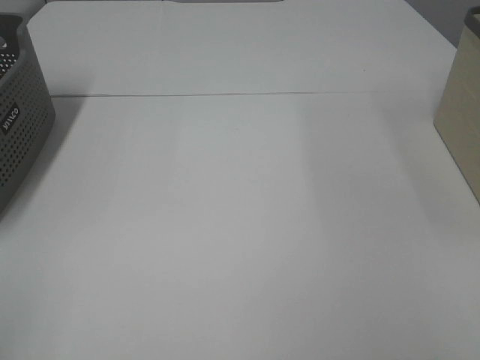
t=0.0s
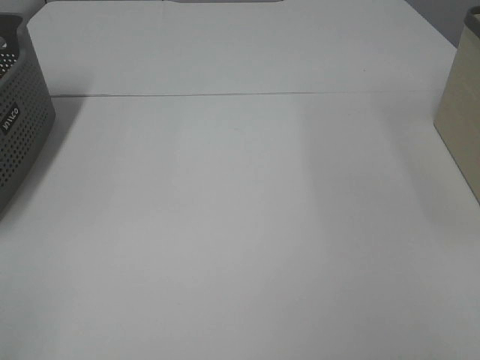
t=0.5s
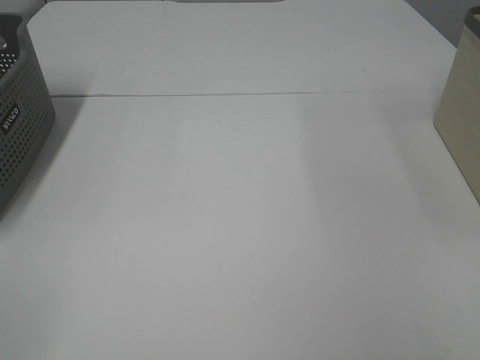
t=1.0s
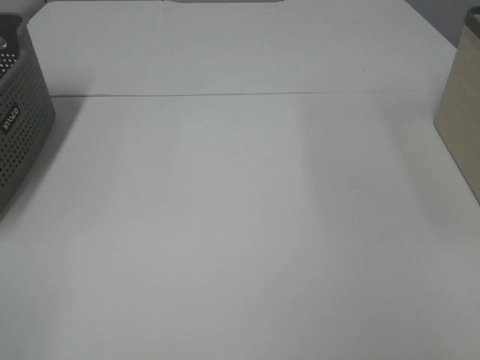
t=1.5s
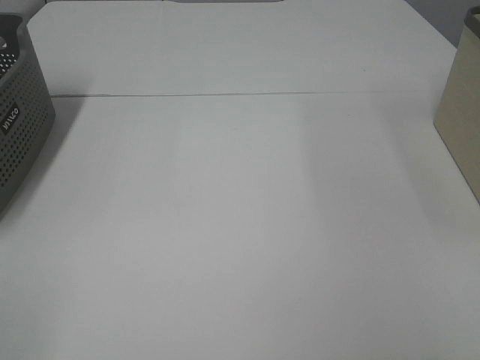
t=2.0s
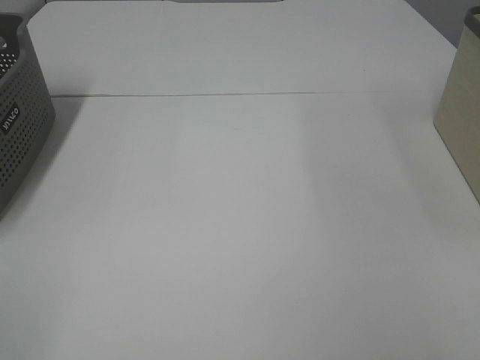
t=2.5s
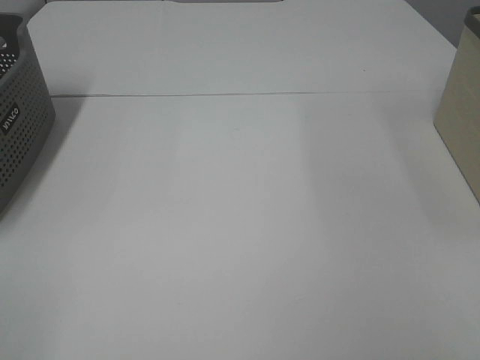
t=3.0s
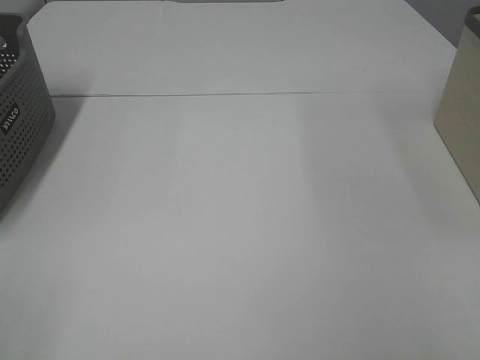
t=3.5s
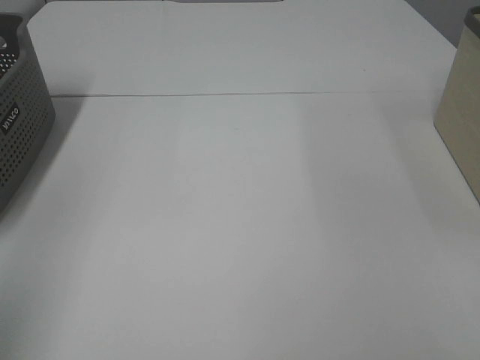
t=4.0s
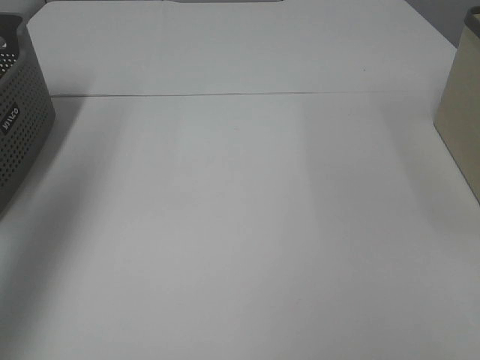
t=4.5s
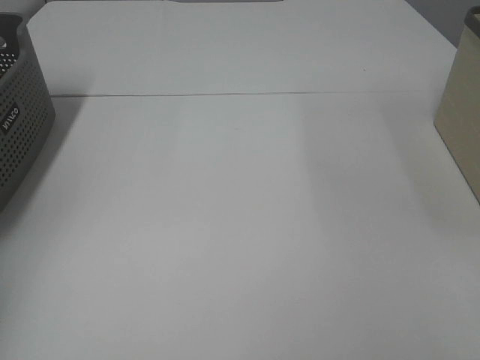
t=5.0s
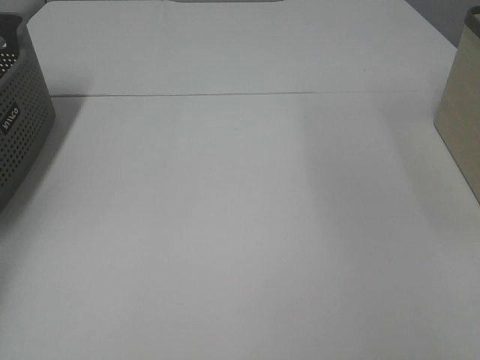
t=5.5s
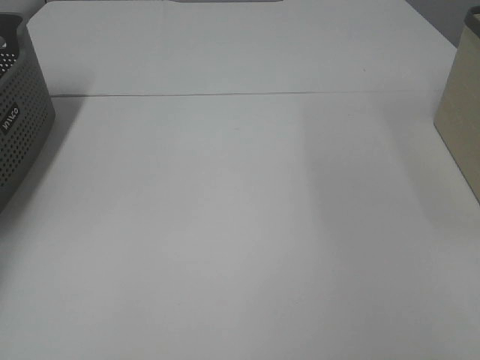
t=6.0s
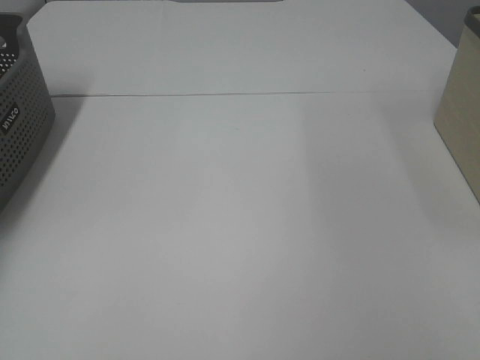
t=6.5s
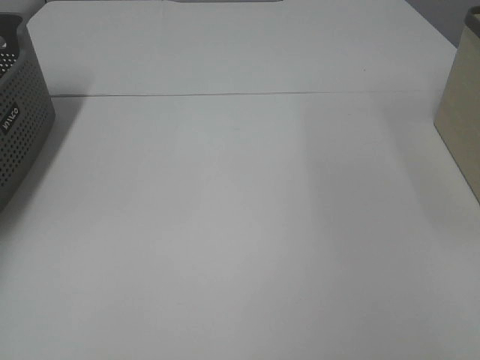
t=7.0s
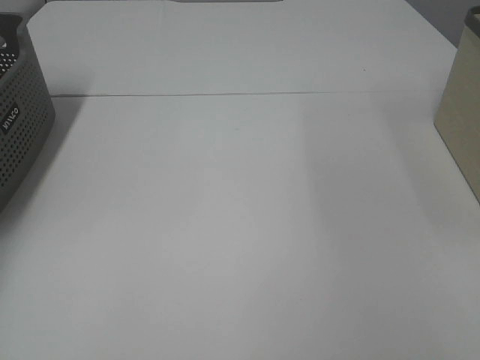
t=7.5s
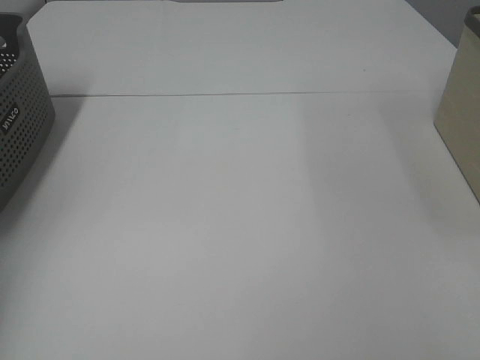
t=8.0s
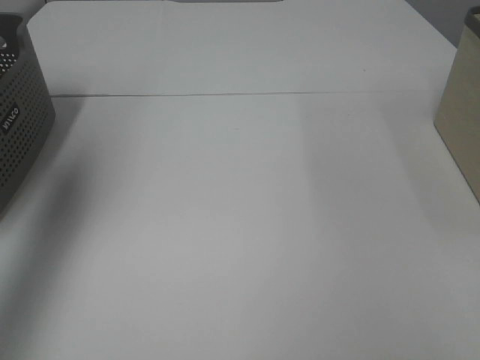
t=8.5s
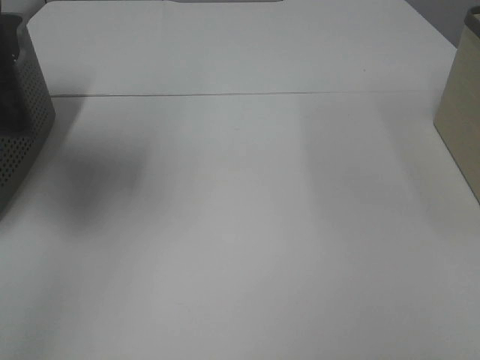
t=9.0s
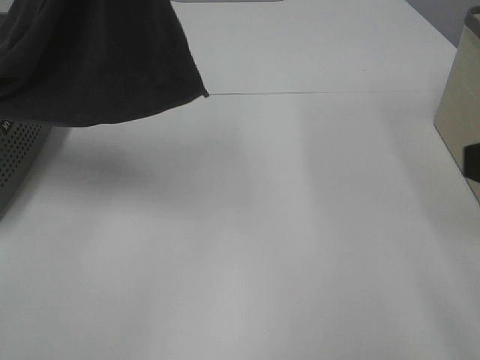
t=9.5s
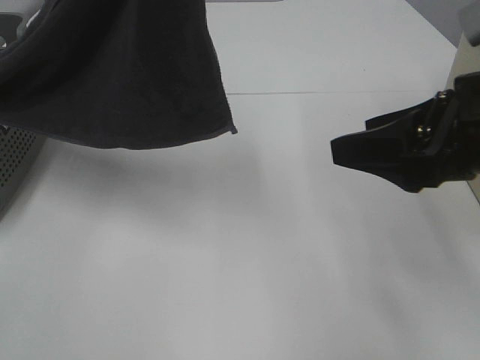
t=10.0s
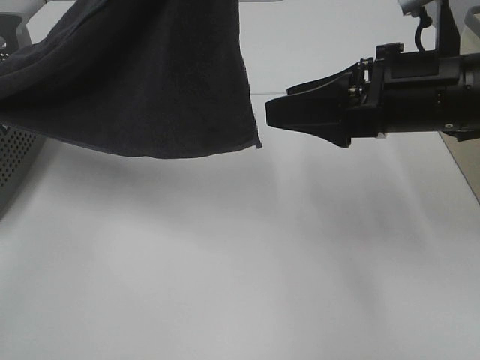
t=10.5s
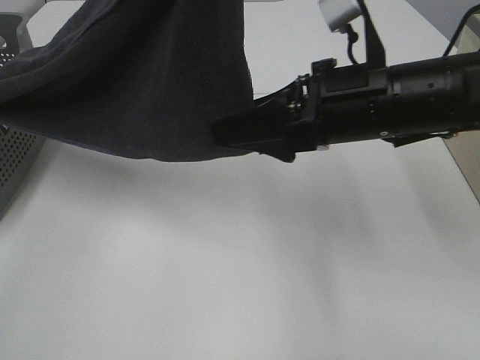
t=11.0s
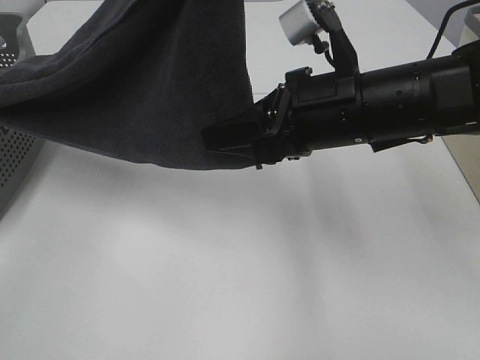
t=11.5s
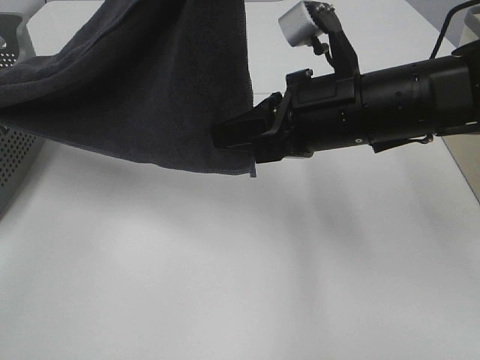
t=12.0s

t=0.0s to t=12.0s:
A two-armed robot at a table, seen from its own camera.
Task of the whole recording: Remove the towel and place it.
t=4.0s to t=6.0s: The left gripper travels forward, downward and to the left by about 40 cm.
t=8.0s to t=10.0s: The right gripper goes approximately 20 cm forward and to the left. Meanwhile the left gripper shifts approximately 35 cm to the right and upward.
t=10.0s to t=12.0s: The right gripper heads to the left and forward, covering approximately 10 cm, and closes.

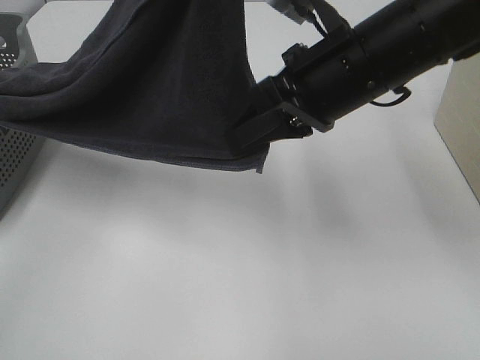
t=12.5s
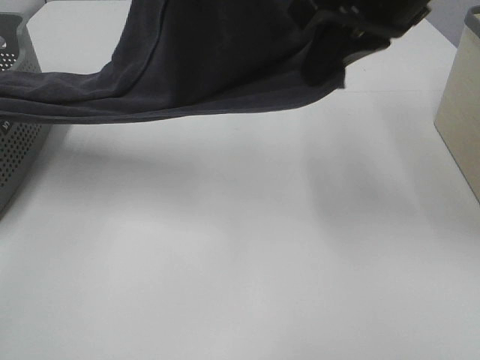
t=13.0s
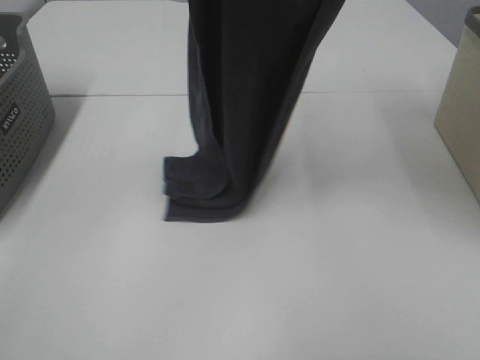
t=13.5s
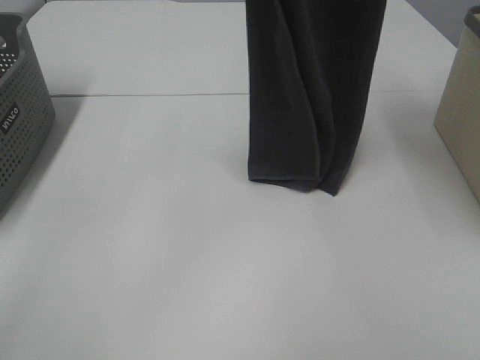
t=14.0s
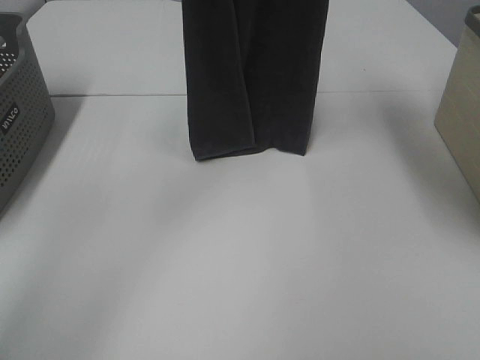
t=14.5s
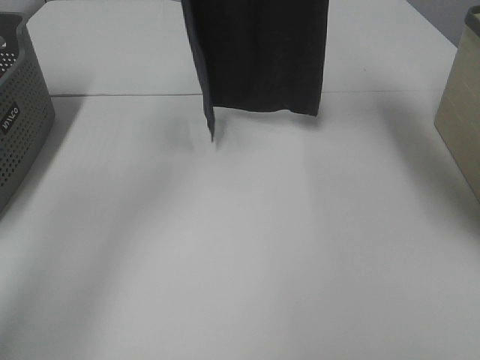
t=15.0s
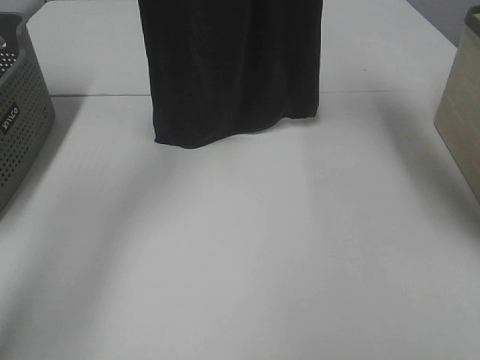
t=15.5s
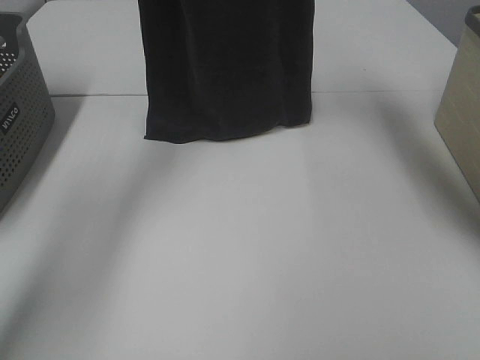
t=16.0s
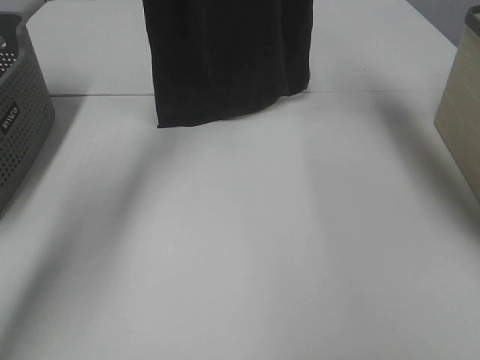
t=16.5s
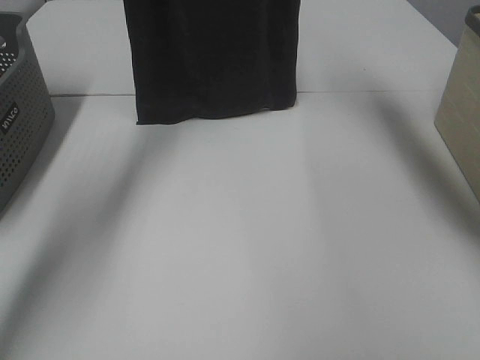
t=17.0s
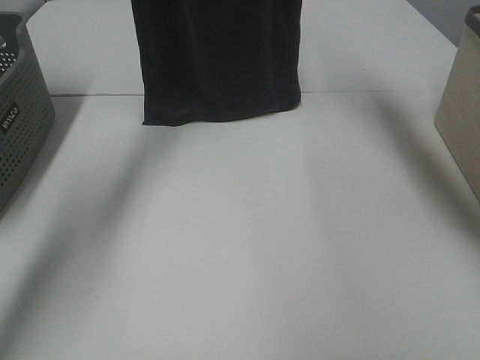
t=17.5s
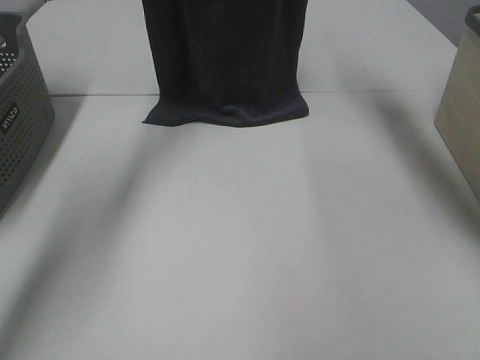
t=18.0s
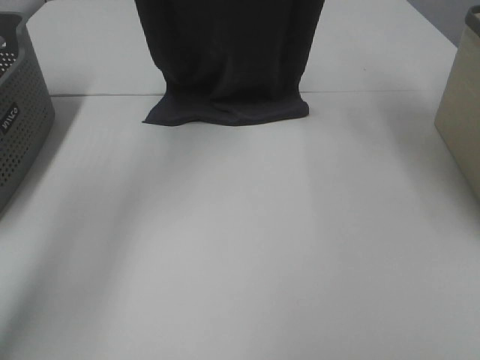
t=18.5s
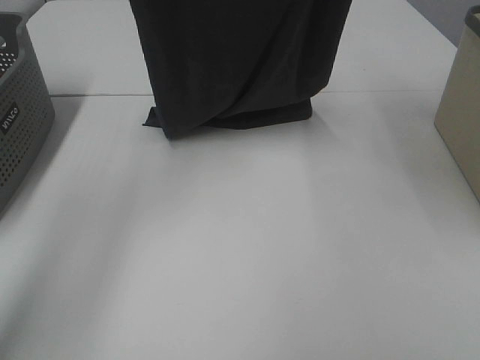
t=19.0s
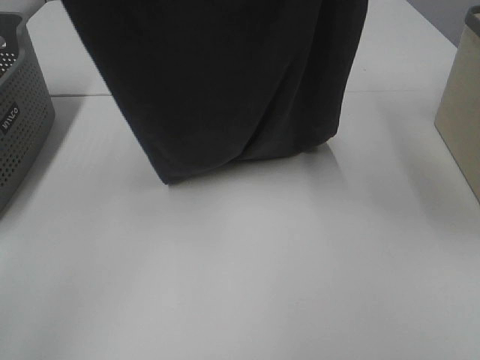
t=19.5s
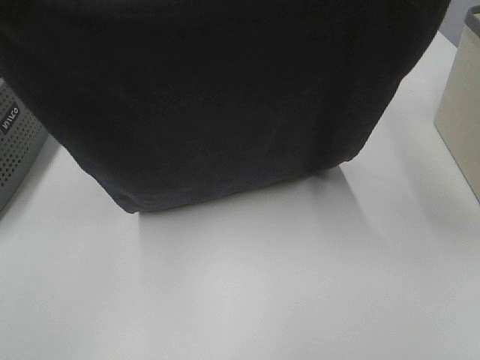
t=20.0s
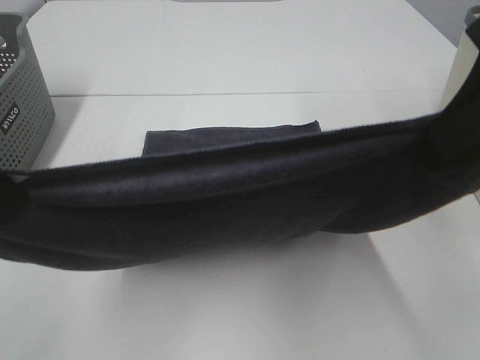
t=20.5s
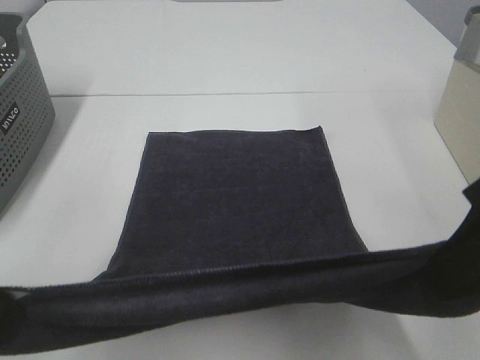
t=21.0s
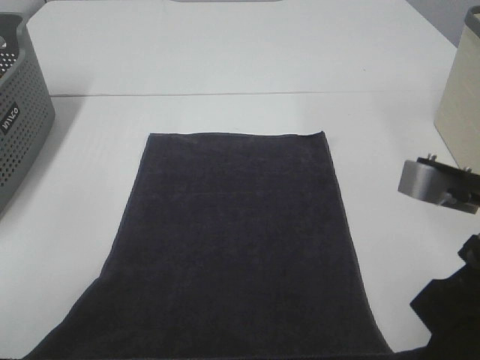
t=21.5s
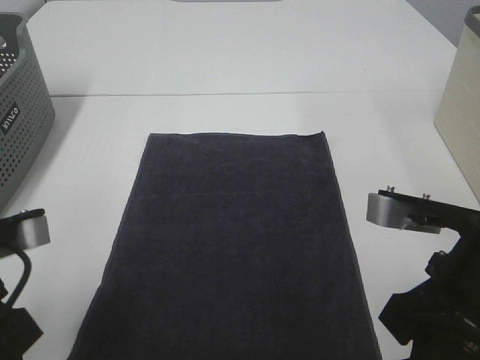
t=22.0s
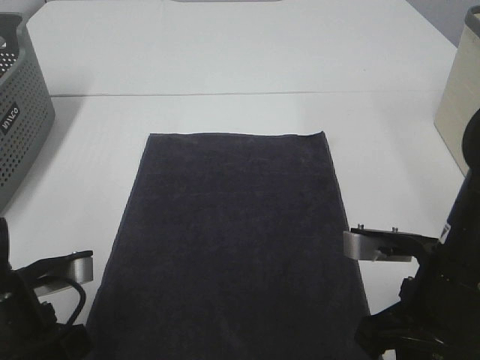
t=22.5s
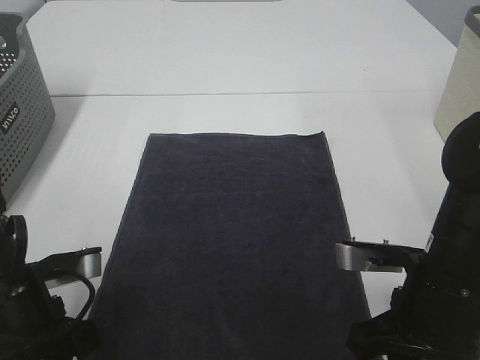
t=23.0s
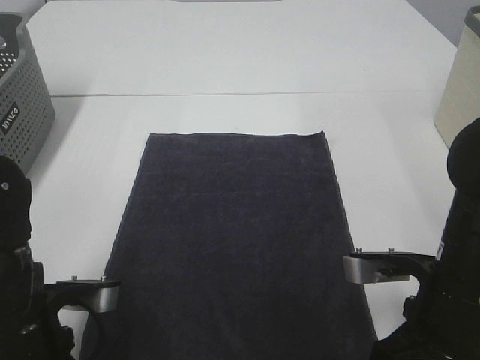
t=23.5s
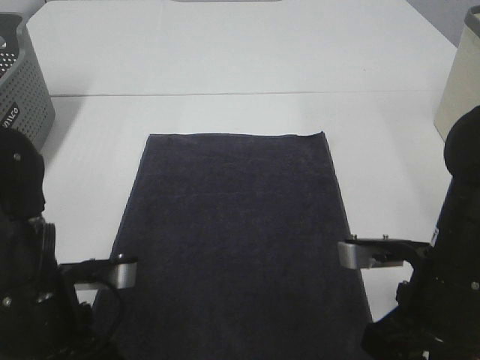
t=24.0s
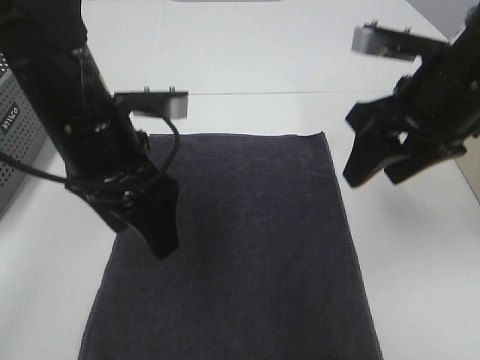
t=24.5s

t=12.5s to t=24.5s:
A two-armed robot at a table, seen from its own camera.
Task of the whole recording: Remove the towel and place it.
Step, t=13.0s to t=19.0s: Left hand: spread the grey towel flat on the table.
Step, t=13.0s to t=19.0s: Right hand: spread the grey towel flat on the table.
t=12.5s to t=14.5s: The left gripper moves forward, about 15 cm. Meanwhile the right gripper moves upward and forward, approximately 25 cm.
t=14.5s to t=16.5s: The grippers both shift forward by about 10 cm.
t=16.5s to t=18.5s: The grippers both shift backward by about 5 cm.
t=18.5s to t=20.5s: The left gripper travels backward and downward by approximately 30 cm. The right gripper travels backward by approximately 25 cm.
t=20.5s to t=22.5s: The grippers both shift downward by roughly 20 cm.
t=22.5s to t=24.5s: The right gripper goes about 15 cm upward and forward, and opens up, while the left gripper is displaced forward, upward and to the right by some 15 cm, and opens.

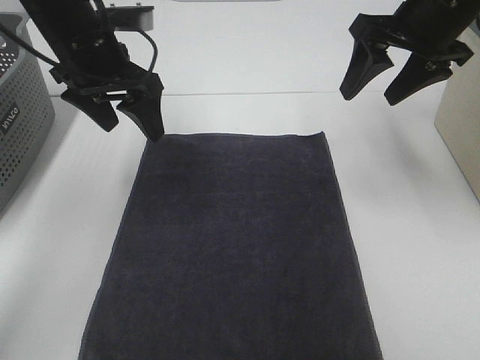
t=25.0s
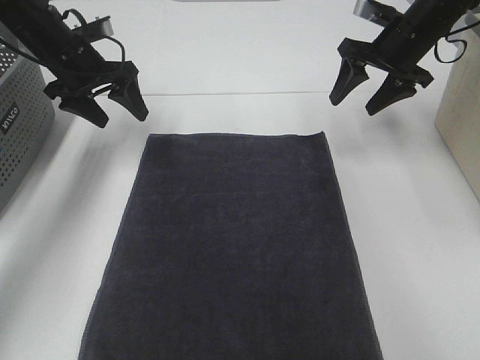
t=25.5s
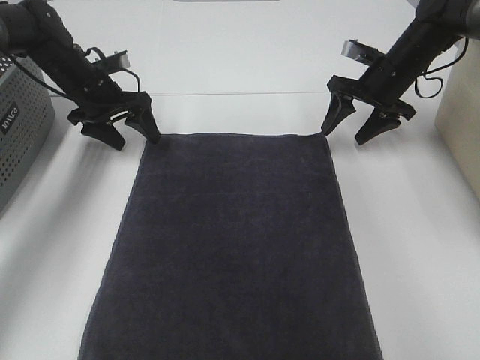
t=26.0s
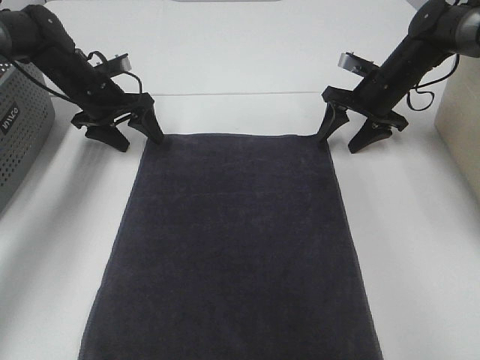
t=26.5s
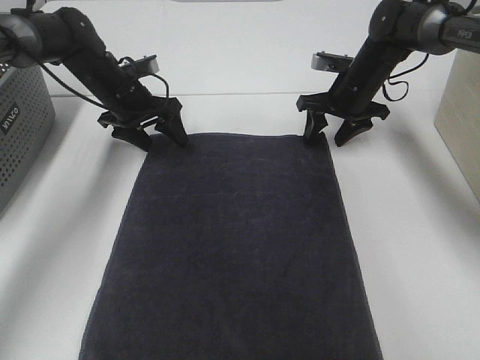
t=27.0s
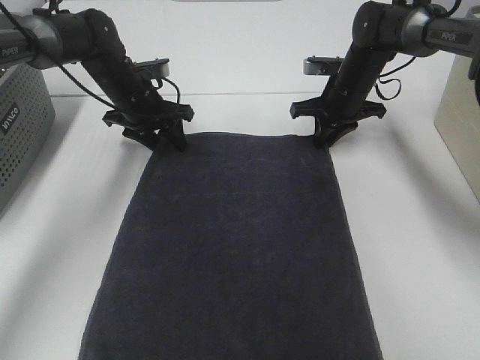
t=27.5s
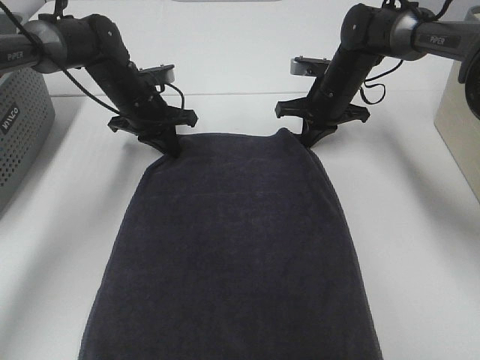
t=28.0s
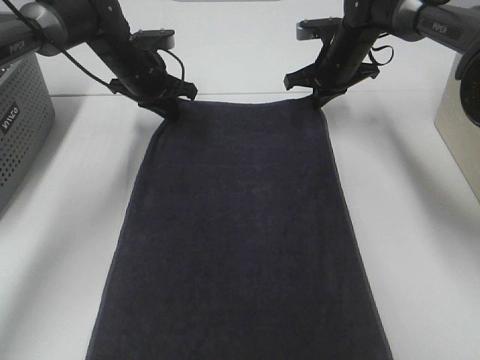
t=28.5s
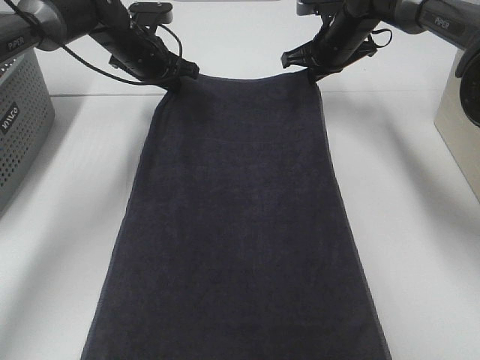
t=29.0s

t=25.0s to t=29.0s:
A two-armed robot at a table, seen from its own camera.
Task of the whole recording: Remove the towel and place it.
t=25.0s to t=27.0s: Both grippers move downward and forward, about 20 cm.
t=27.0s to t=29.0s: The two grippers go approximately 5 cm upward. The left gripper closes. The right gripper closes.
